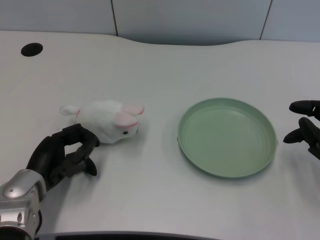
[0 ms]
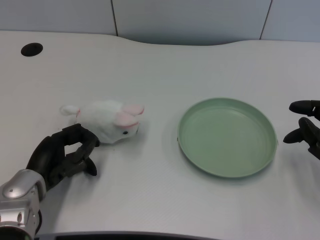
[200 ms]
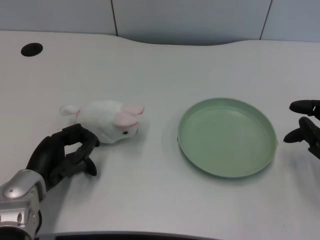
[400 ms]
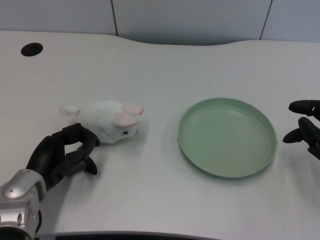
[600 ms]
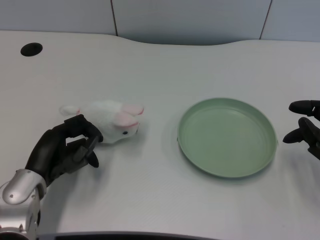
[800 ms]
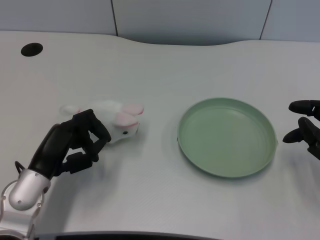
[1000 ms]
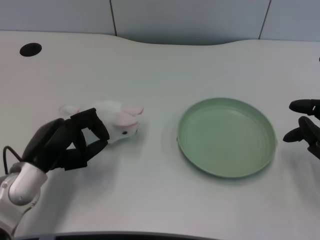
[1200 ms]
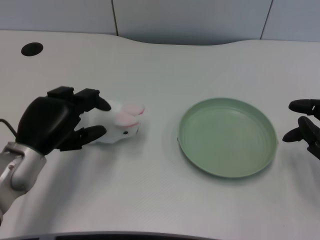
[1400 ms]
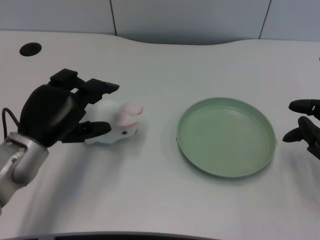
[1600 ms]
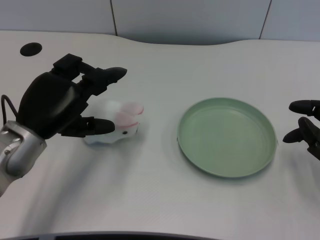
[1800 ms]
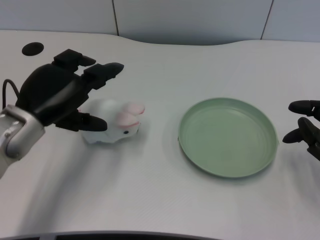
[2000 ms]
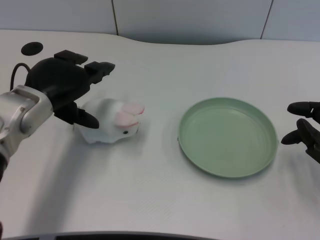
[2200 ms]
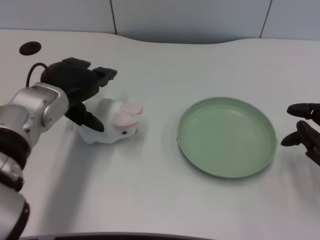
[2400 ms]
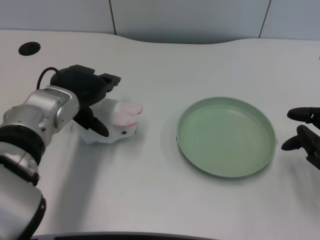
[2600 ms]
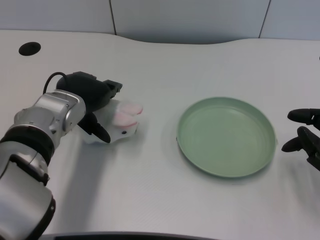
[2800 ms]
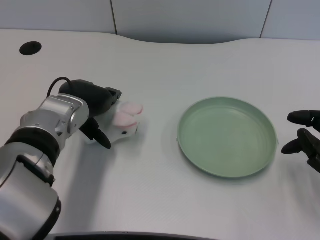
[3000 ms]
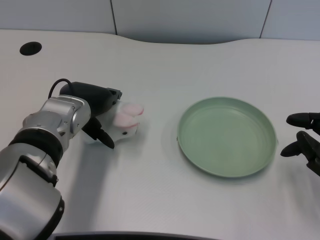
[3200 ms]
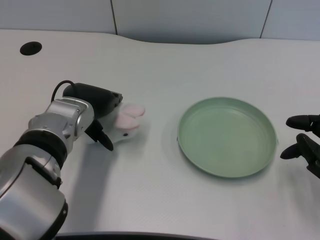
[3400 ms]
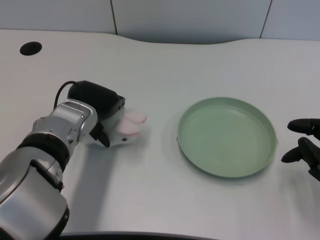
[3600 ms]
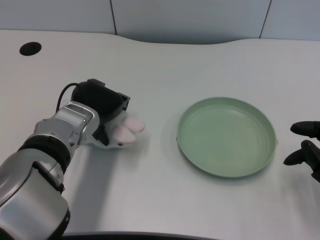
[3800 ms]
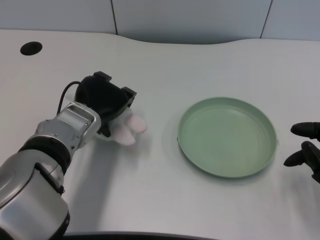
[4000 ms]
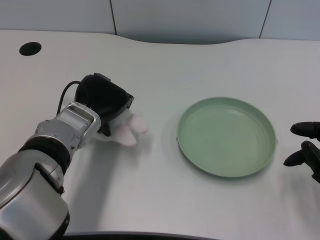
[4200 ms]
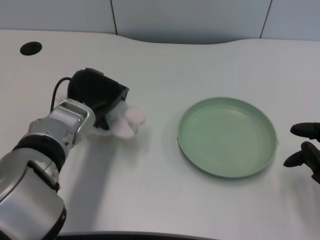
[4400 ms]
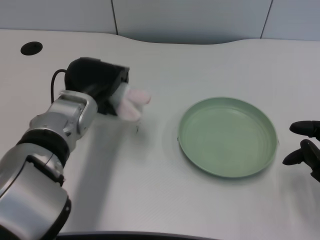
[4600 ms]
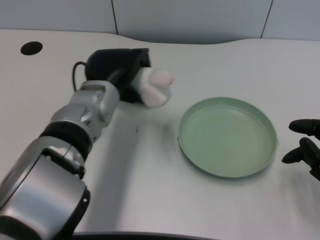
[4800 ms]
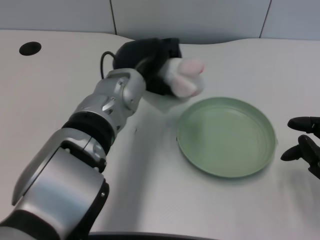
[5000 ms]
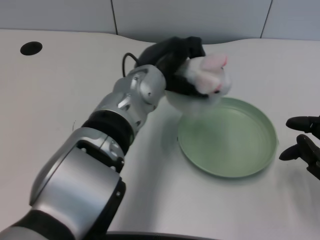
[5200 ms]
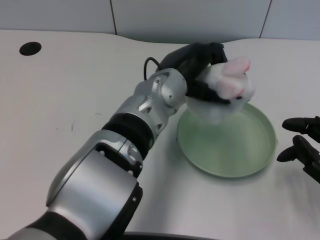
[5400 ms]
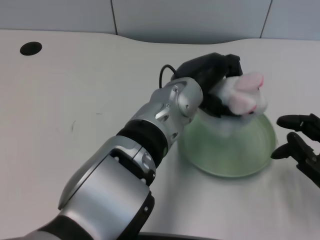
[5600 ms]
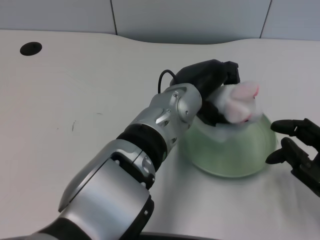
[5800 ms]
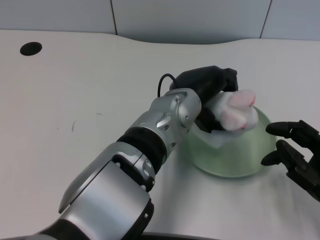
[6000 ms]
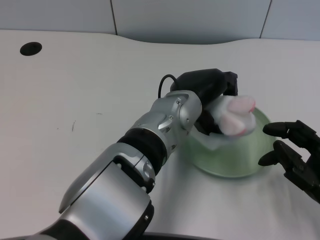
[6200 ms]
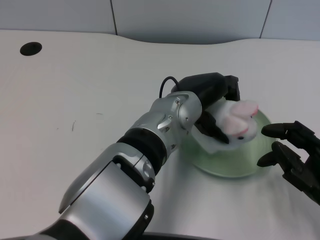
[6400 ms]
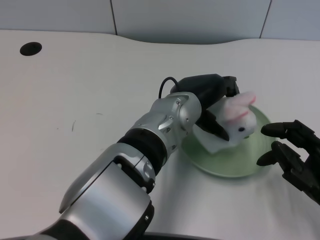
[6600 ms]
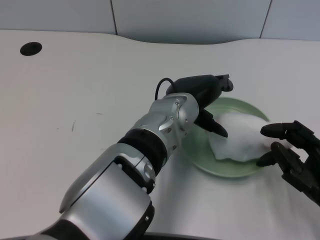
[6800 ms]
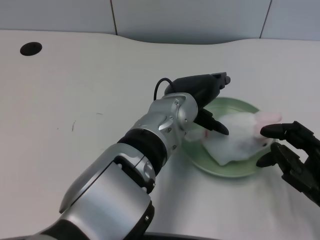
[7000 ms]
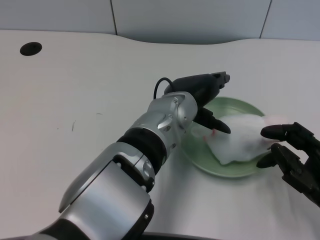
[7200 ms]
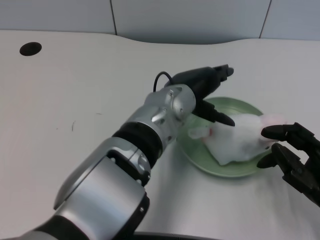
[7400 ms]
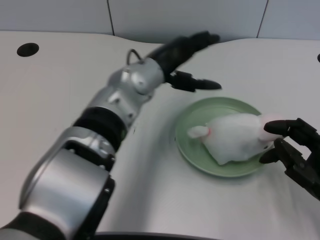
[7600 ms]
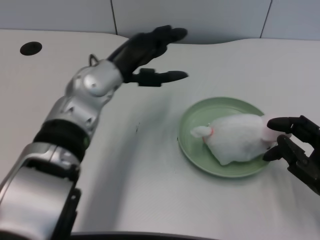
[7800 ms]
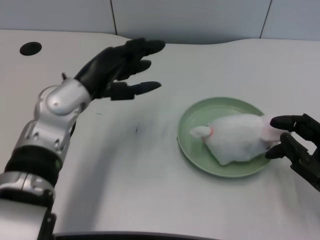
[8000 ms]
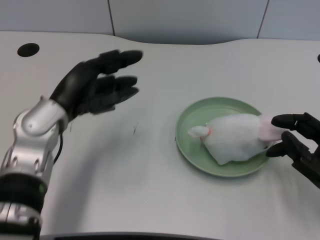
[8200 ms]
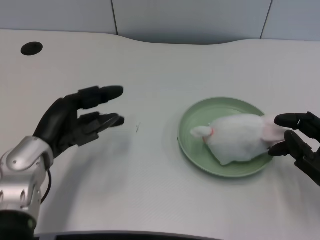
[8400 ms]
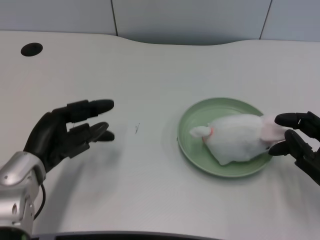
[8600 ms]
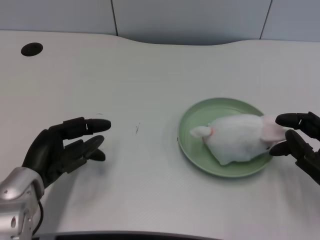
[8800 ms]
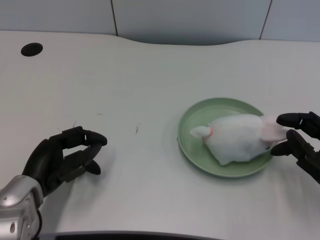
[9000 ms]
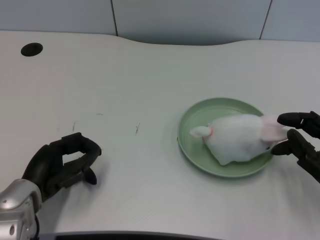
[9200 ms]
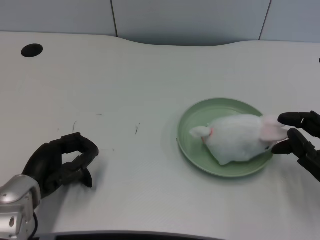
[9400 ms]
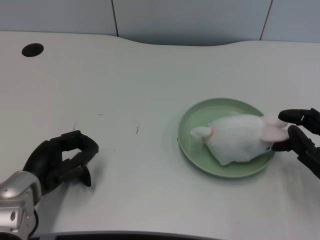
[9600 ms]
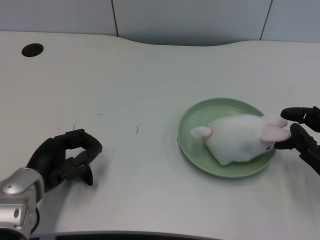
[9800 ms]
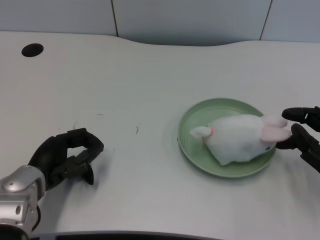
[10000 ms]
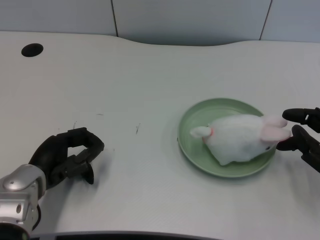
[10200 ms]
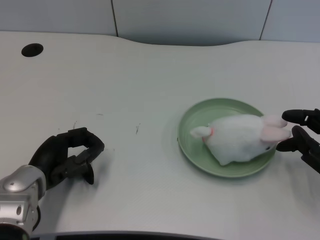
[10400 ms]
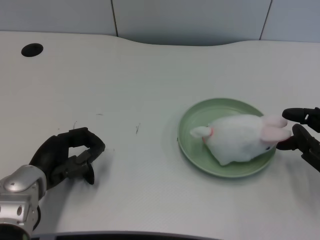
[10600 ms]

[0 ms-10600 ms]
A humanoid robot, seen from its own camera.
Task of the whole recording: pick up the rabbit doll from the table and place it on the plate.
Step, 1000 ms to 4400 ms: Grasp the rabbit doll with the left gripper.
Step, 4600 ms to 6800 ms: Place the rabbit doll into the plate with the left gripper.
1600 ms to 3000 ms: The left hand travels to the right and forward by approximately 10 cm.
4600 ms to 6000 ms: The left hand shifts some 15 cm to the right.
6000 ms to 7600 ms: The left hand goes about 5 cm to the left.
7600 ms to 9000 ms: The left hand travels to the left, downward and backward by roughly 25 cm.
9000 ms to 10600 ms: The hands move only a little.

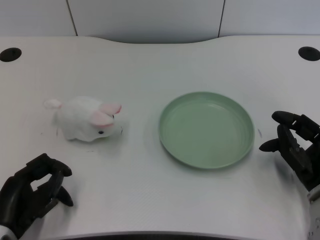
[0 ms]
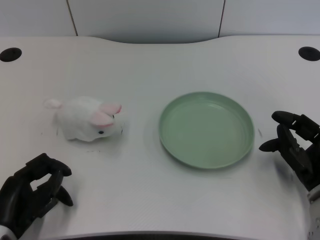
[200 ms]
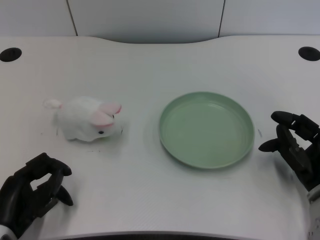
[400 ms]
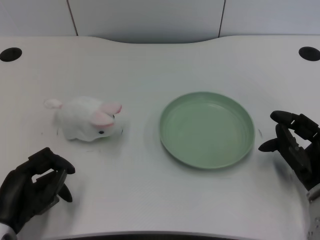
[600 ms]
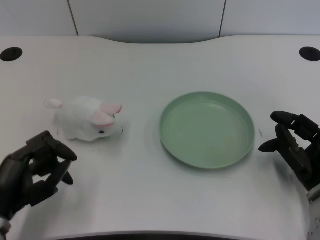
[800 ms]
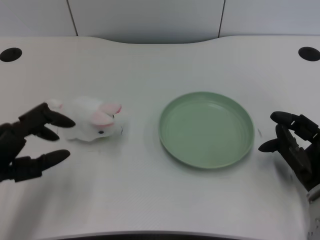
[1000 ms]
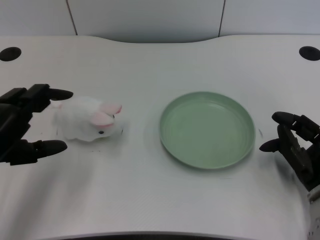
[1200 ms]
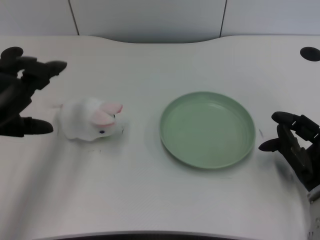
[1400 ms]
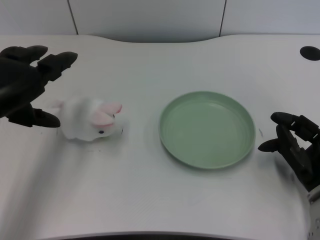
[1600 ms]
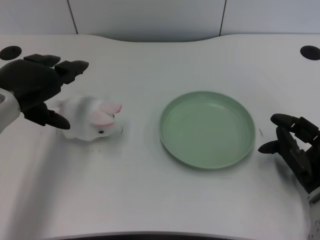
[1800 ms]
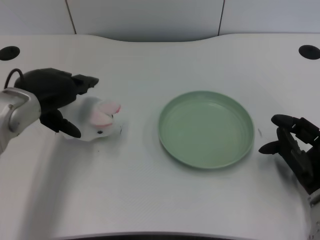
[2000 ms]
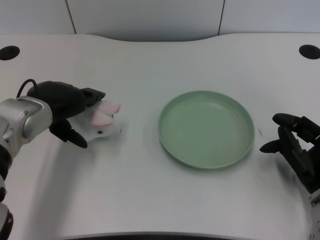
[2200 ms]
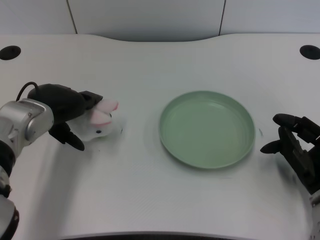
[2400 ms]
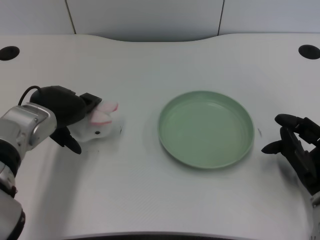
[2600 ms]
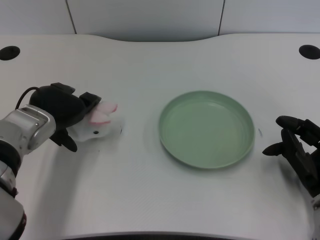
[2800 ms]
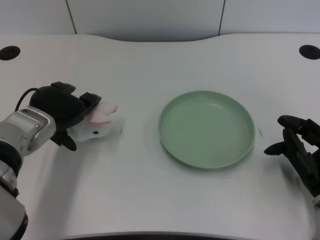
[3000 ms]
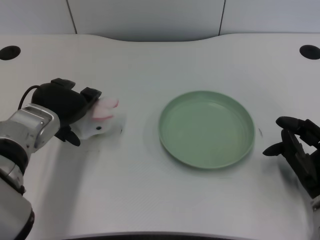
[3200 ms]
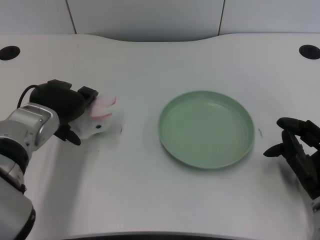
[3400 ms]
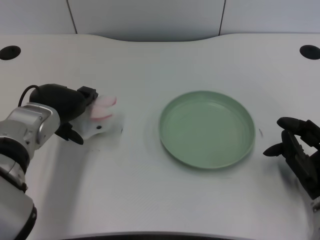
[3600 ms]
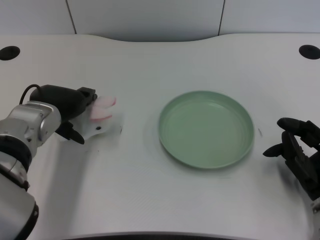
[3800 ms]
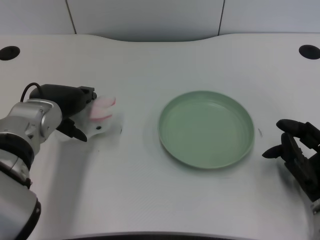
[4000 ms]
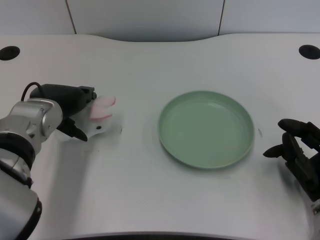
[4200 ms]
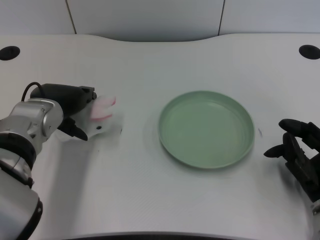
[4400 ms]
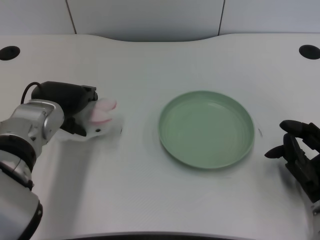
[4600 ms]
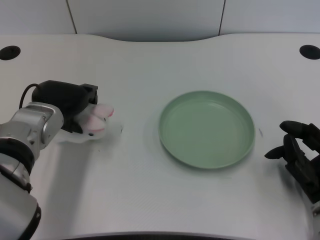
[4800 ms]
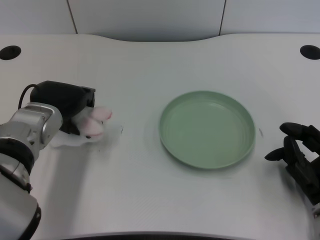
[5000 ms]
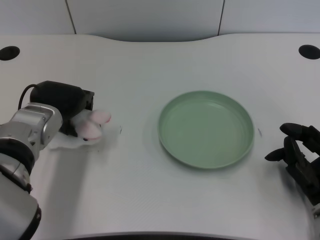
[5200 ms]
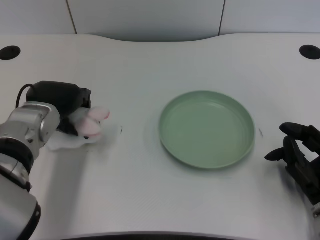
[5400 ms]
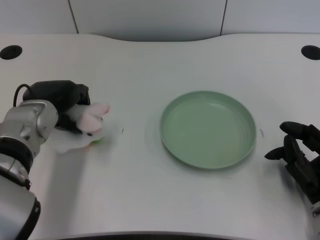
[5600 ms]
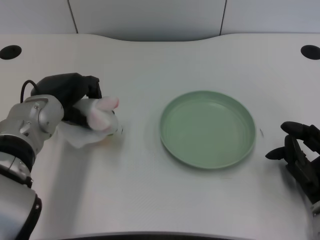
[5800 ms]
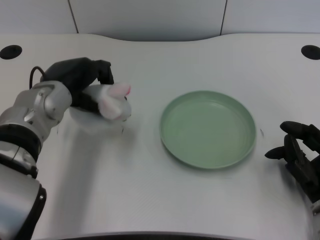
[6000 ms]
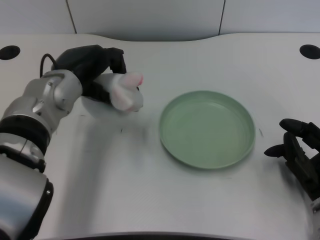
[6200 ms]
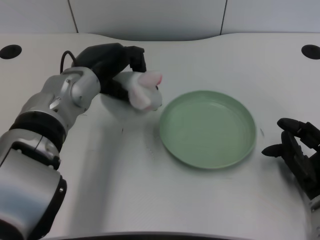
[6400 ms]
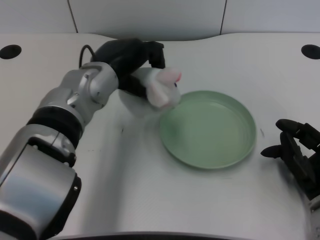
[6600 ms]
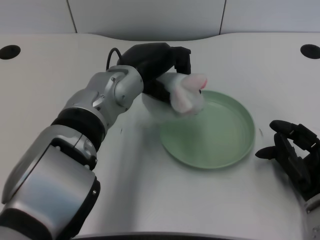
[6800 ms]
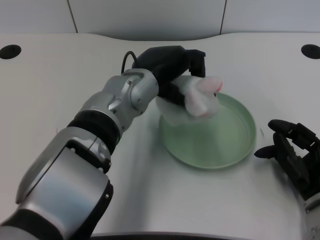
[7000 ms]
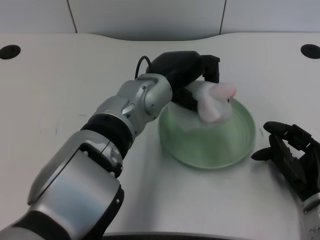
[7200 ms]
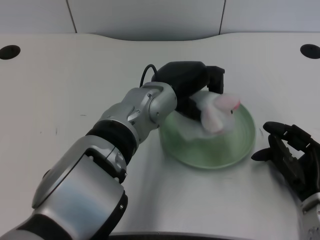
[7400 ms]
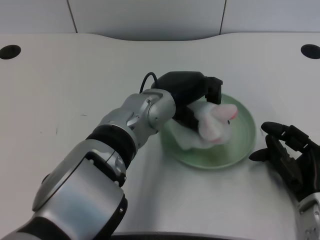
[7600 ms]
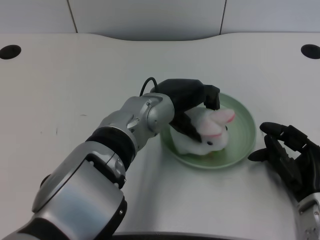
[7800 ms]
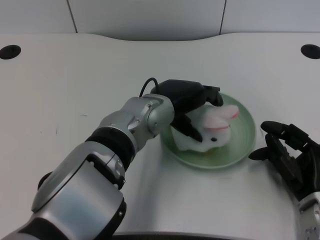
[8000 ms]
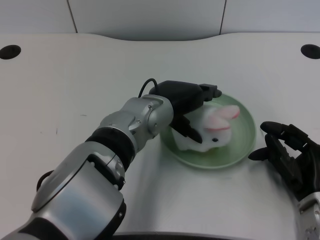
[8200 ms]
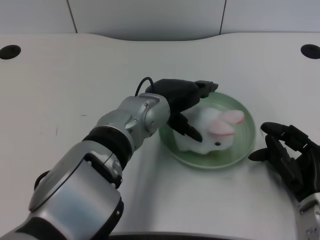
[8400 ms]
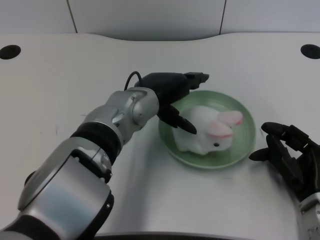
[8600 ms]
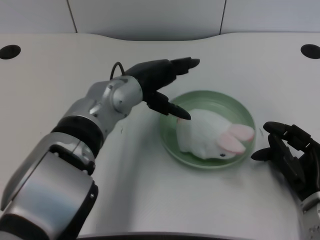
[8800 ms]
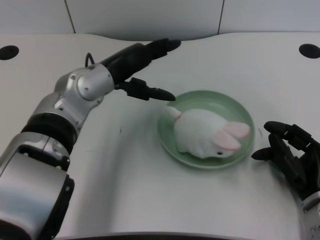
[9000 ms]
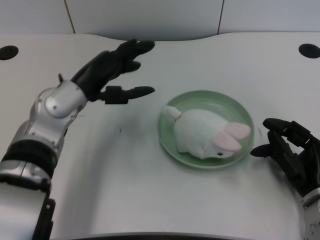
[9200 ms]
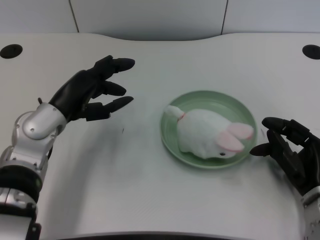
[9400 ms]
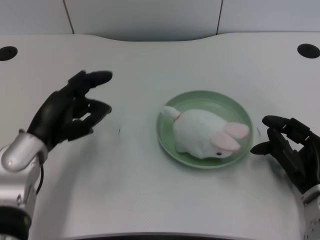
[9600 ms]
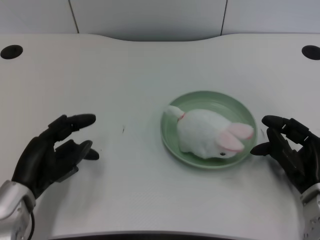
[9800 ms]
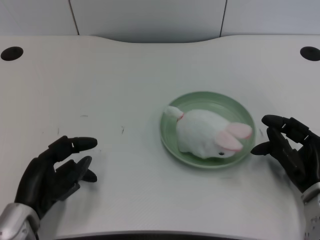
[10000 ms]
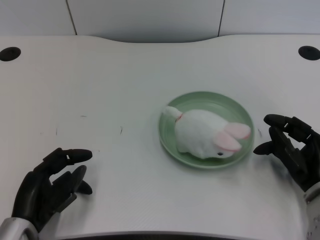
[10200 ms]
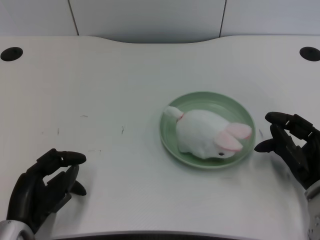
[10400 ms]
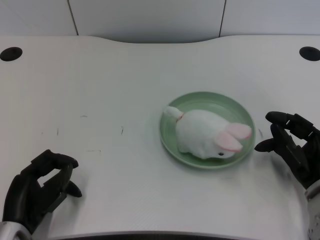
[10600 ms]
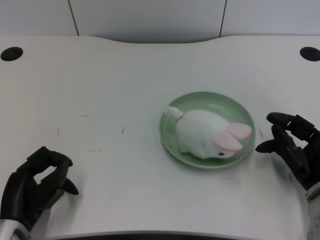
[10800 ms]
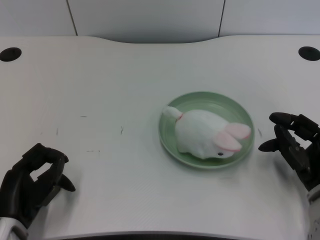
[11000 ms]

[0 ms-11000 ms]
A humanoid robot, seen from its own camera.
Task of the whole recording: pick up the rabbit doll from the table and place it on the plate.
Step, 800 ms to 5600 ms: Grasp the rabbit doll with the left gripper.
Step, 6000 ms to 8200 ms: Place the rabbit doll into the plate with the left gripper.
1600 ms to 3200 ms: The left hand shifts roughly 10 cm to the right and downward.
3200 ms to 4800 ms: The hands stay close to where they were, moving slightly.
4800 ms to 6200 ms: The left hand moves some 5 cm.
6200 ms to 7800 ms: The left hand heads to the right, covering about 15 cm.
7800 ms to 9400 ms: The left hand goes some 15 cm to the left.
9400 ms to 11000 ms: The left hand goes about 15 cm backward, downward and to the left.

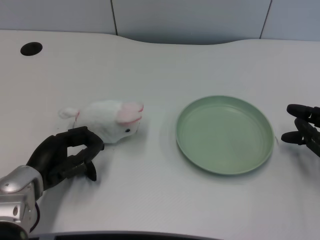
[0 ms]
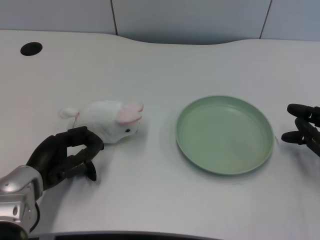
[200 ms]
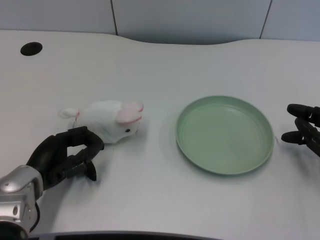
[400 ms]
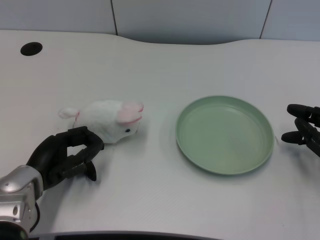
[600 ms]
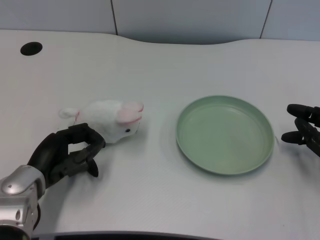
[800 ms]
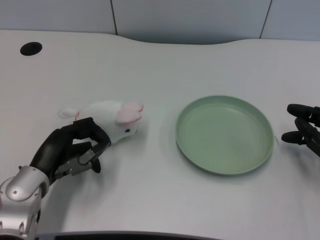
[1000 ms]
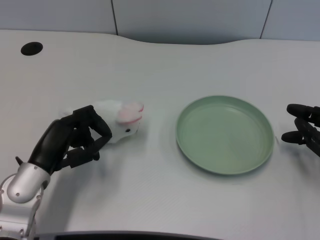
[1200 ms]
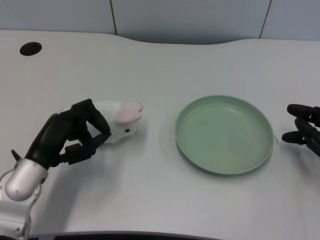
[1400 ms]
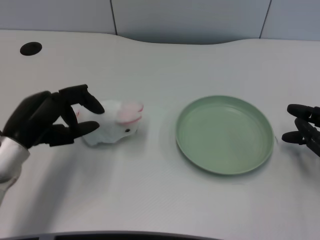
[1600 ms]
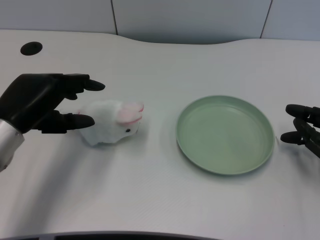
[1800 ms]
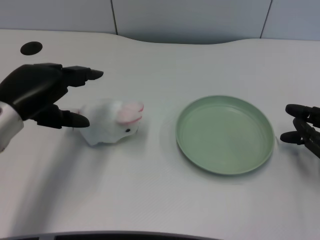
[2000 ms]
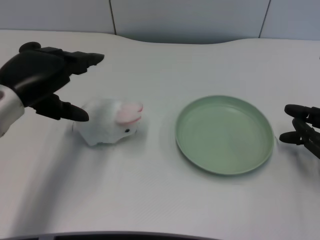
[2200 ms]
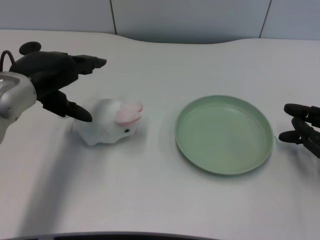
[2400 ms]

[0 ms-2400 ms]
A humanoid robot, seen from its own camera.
Task of the whole recording: pick up the rabbit doll from the table and place it on the plate.
1200 ms to 2400 ms: The left hand heads upward and forward, covering some 15 cm.
